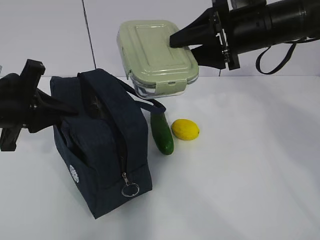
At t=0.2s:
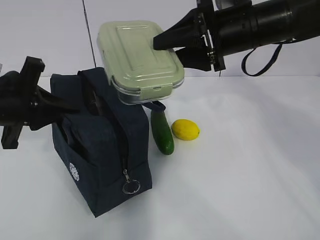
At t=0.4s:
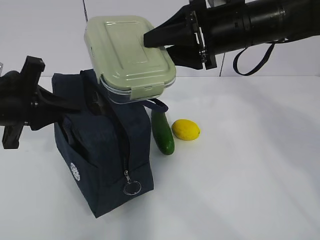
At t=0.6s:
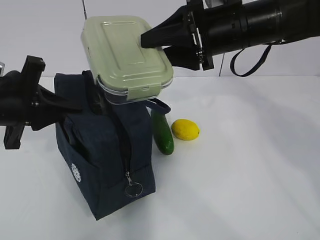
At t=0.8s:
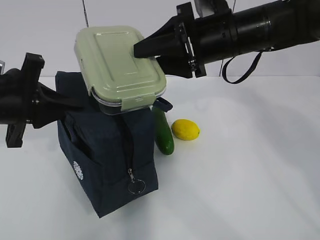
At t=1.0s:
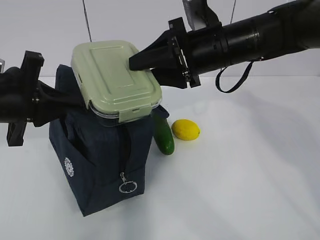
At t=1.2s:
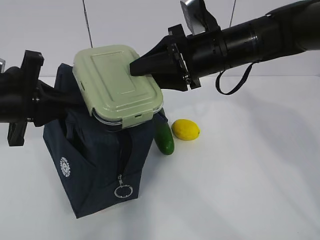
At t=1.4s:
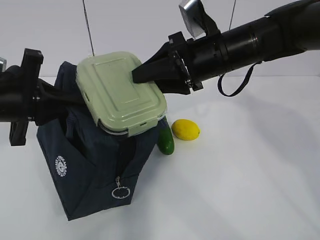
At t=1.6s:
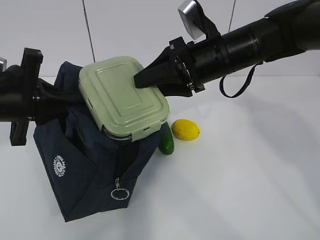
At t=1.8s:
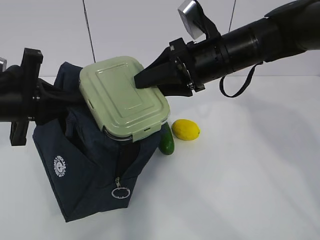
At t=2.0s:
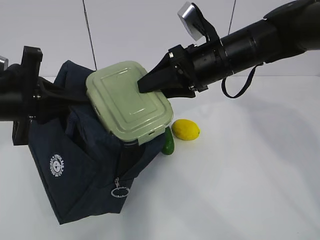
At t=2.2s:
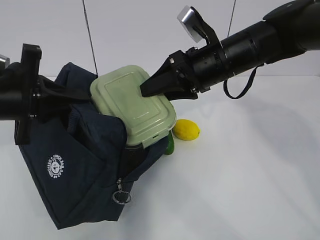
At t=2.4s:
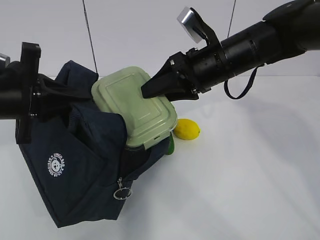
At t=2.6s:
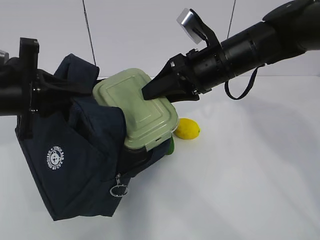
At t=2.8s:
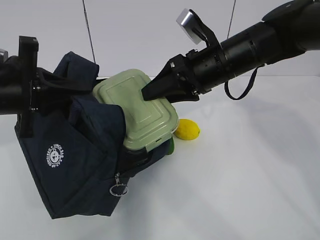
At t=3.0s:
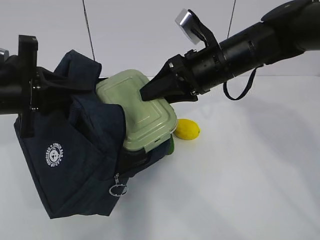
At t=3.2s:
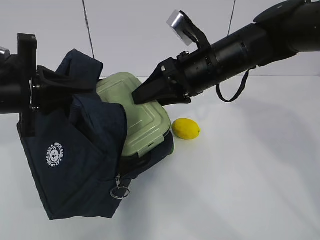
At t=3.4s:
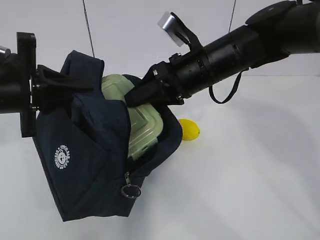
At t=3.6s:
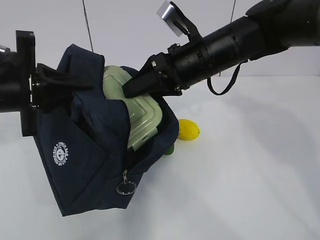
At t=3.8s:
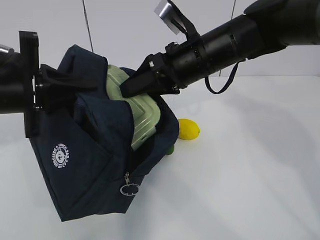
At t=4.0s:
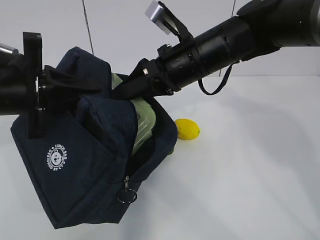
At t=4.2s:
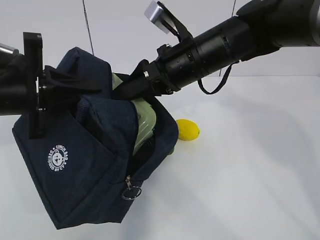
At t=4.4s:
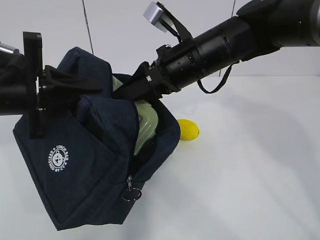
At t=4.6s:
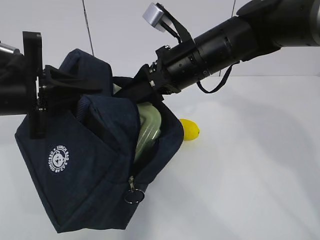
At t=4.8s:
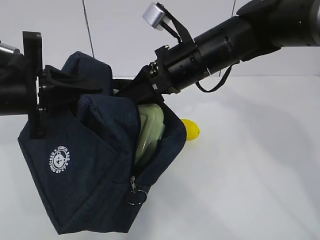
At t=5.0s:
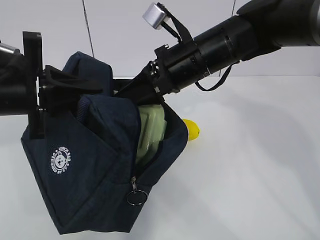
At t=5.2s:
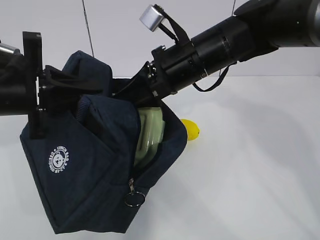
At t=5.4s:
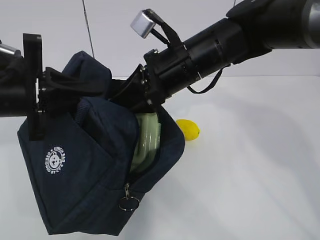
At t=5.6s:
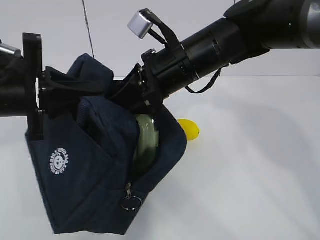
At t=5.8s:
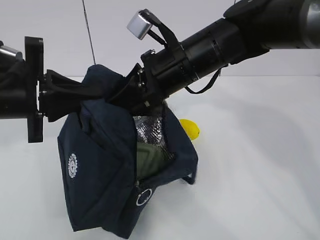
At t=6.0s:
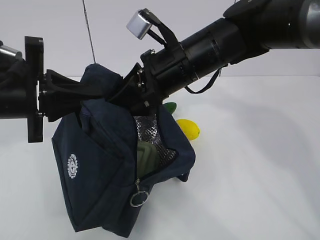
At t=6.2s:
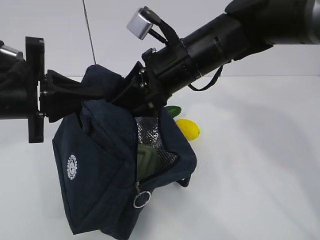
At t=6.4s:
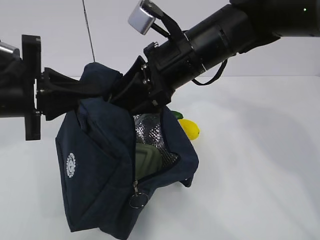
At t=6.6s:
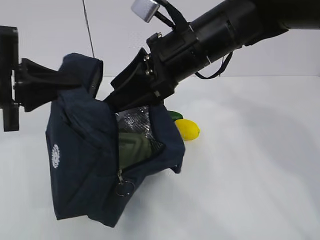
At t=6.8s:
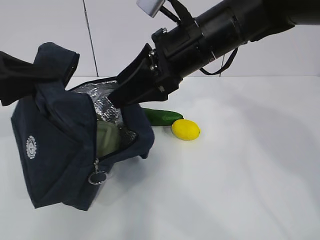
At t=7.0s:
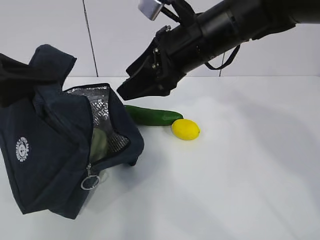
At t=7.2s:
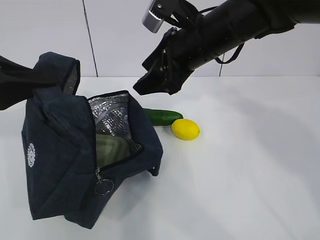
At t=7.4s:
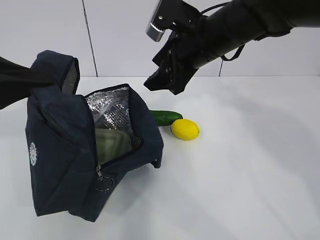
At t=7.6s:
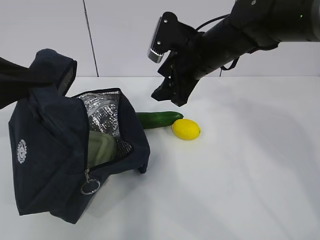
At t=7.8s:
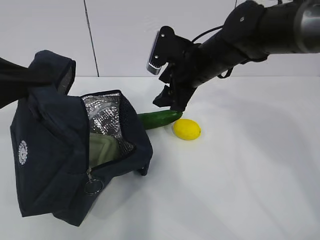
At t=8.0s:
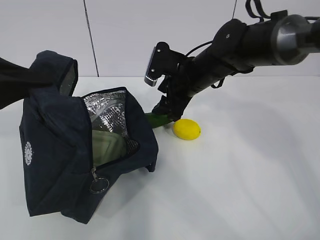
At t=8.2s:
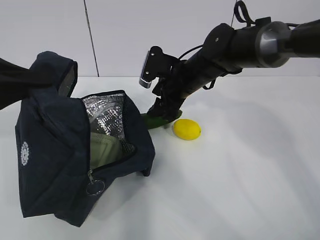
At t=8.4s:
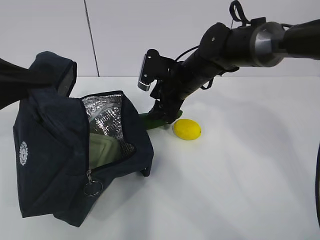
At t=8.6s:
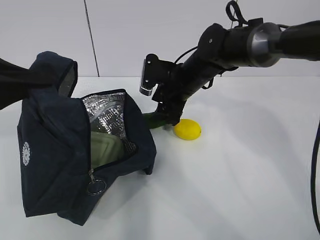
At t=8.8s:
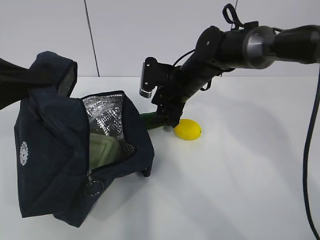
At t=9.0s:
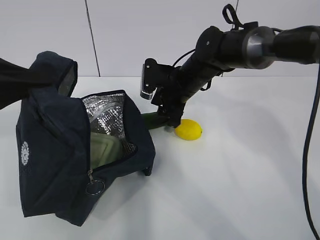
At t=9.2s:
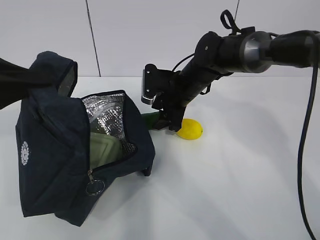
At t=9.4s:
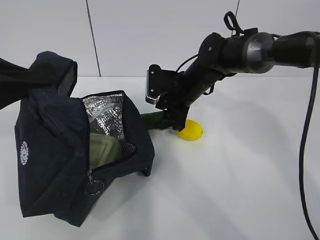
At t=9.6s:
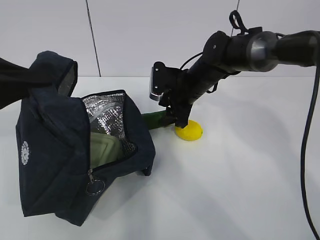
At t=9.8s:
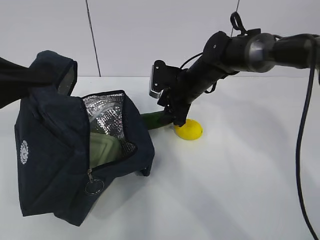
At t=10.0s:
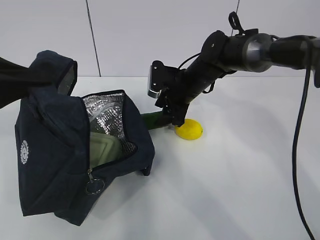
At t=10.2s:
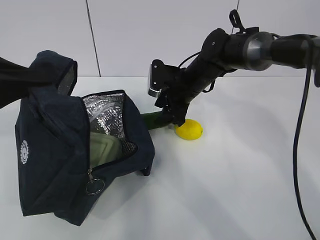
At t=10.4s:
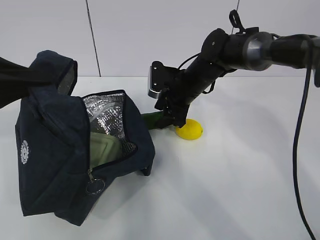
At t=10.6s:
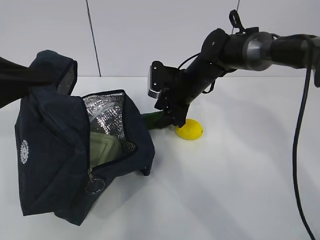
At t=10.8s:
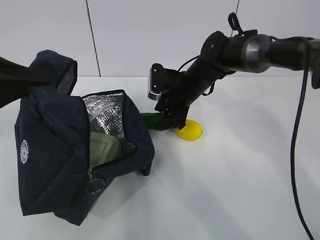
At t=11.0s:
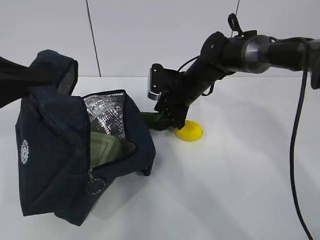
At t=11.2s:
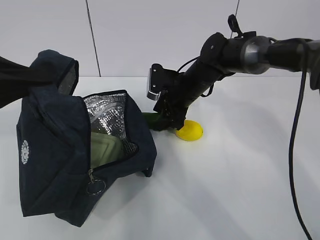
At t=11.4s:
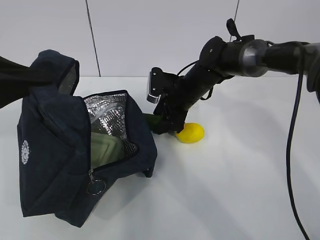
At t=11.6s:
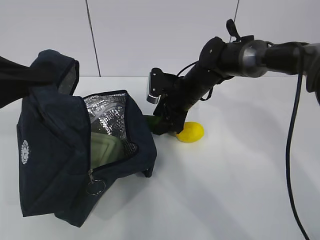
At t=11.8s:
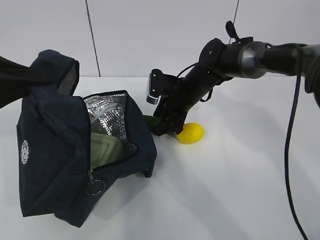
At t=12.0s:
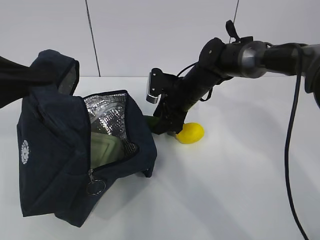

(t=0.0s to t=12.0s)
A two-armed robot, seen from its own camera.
Step, t=0.8s - t=7.8s: Grab the cucumber with your right hand.
t=0.0s - t=1.6s: The right gripper heads to the left, covering approximately 5 cm.
t=1.6s - t=3.0s: The grippers move only a little.
t=6.0s - t=7.6s: The left gripper is displaced to the left by roughly 5 cm. Meanwhile the right gripper shifts roughly 5 cm forward.
t=7.6s - t=9.0s: The right gripper moves downward and forward, roughly 10 cm.
t=9.0s - t=12.0s: There are only small adjustments of the grippers.

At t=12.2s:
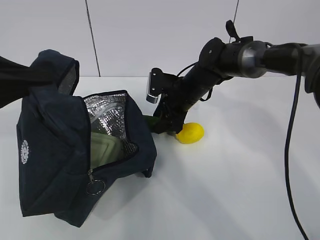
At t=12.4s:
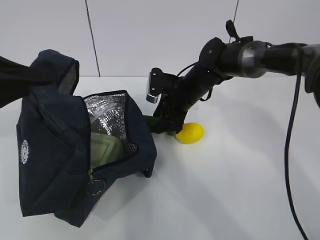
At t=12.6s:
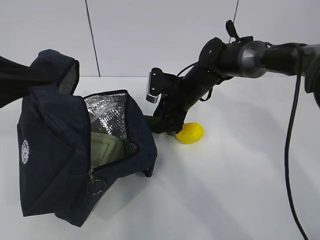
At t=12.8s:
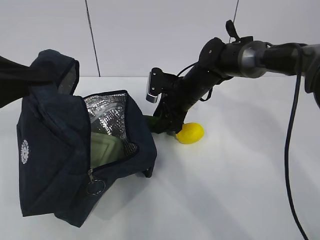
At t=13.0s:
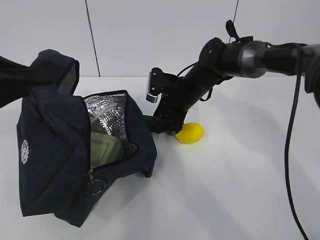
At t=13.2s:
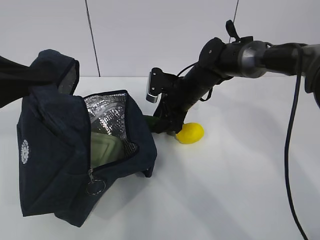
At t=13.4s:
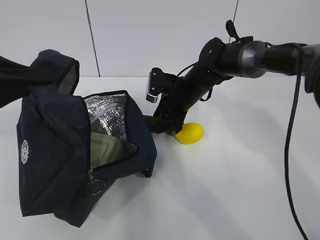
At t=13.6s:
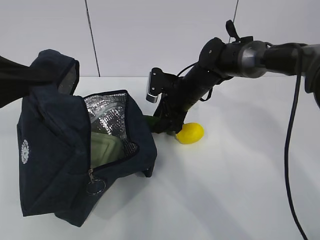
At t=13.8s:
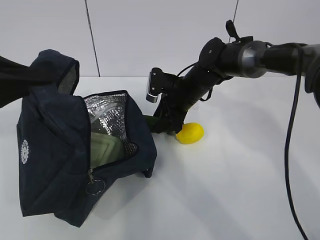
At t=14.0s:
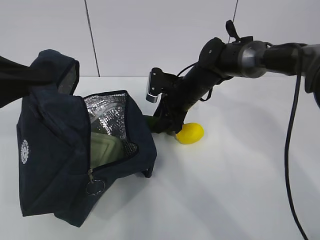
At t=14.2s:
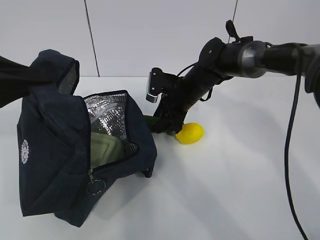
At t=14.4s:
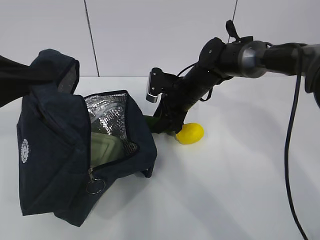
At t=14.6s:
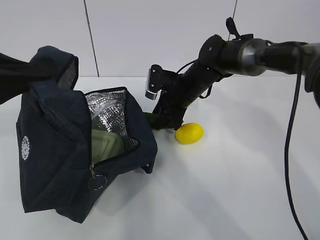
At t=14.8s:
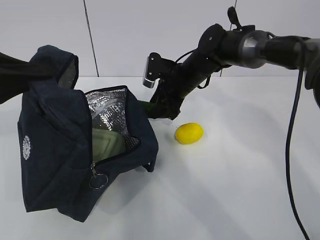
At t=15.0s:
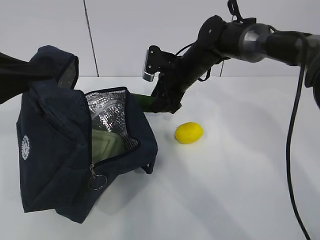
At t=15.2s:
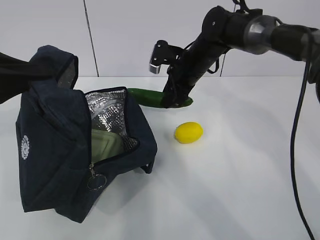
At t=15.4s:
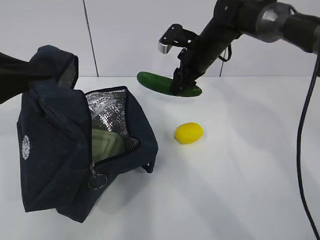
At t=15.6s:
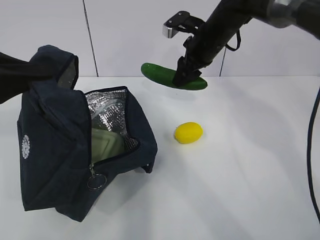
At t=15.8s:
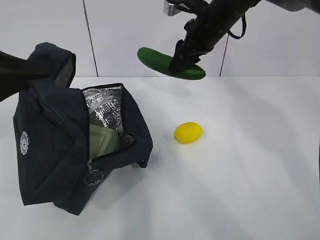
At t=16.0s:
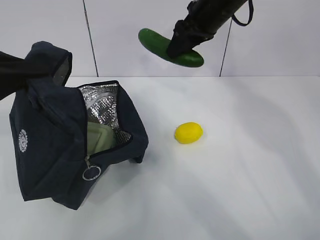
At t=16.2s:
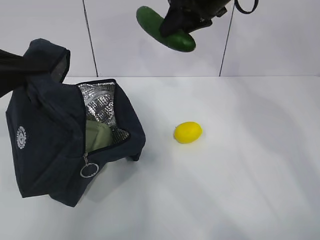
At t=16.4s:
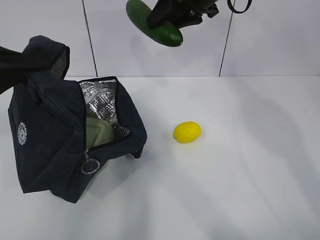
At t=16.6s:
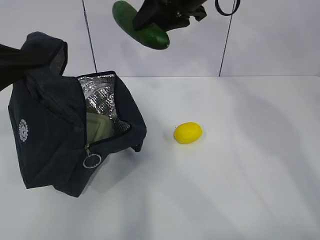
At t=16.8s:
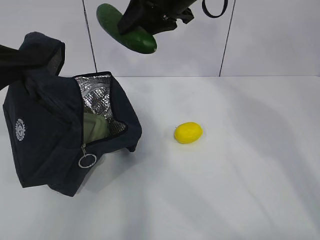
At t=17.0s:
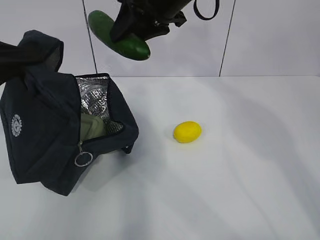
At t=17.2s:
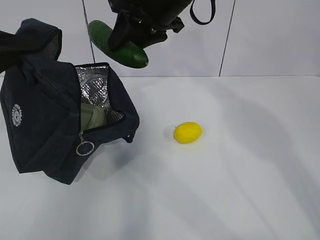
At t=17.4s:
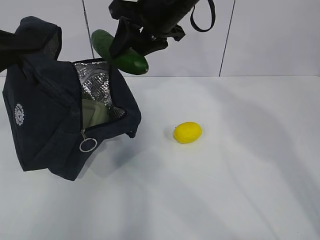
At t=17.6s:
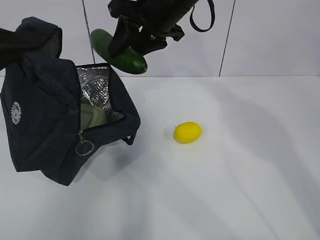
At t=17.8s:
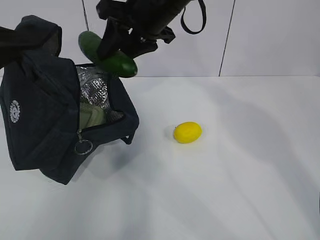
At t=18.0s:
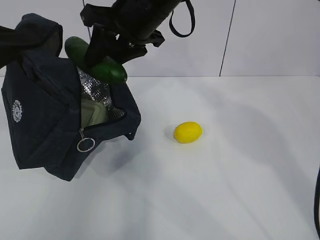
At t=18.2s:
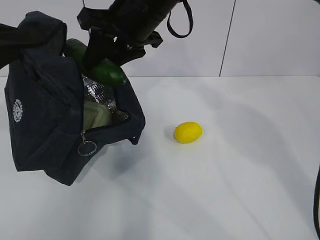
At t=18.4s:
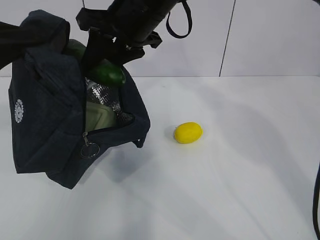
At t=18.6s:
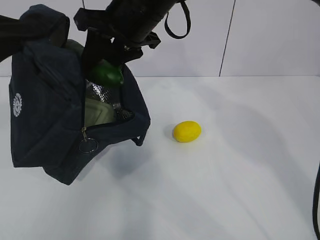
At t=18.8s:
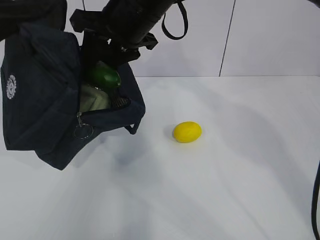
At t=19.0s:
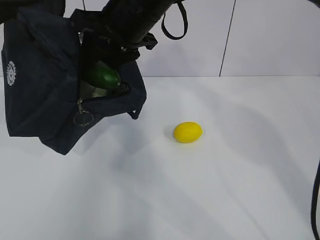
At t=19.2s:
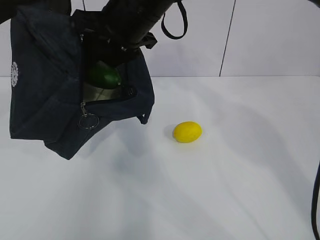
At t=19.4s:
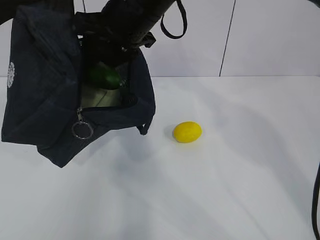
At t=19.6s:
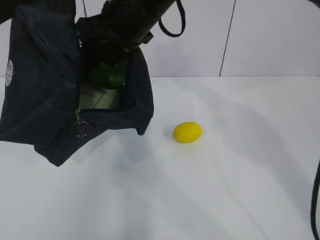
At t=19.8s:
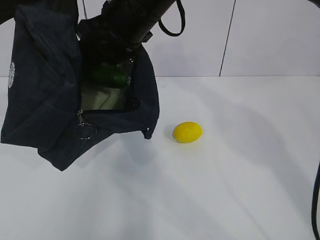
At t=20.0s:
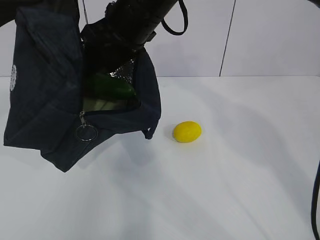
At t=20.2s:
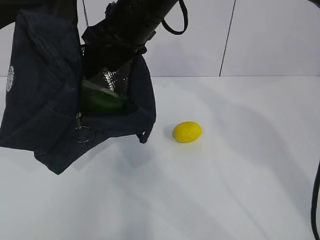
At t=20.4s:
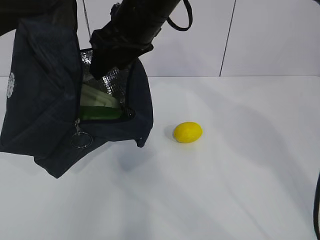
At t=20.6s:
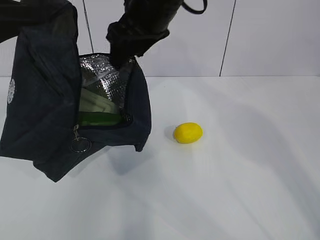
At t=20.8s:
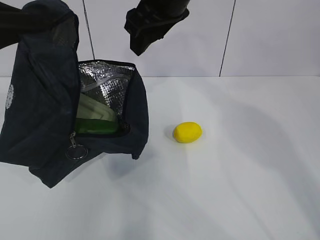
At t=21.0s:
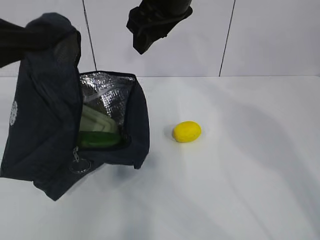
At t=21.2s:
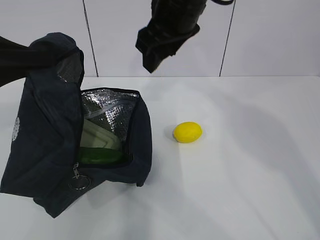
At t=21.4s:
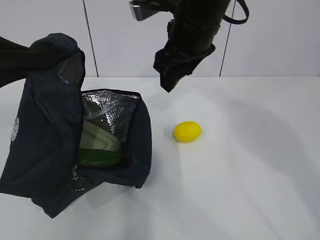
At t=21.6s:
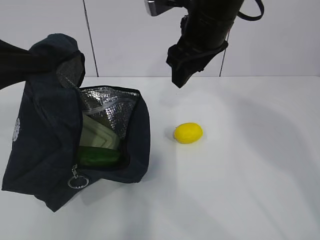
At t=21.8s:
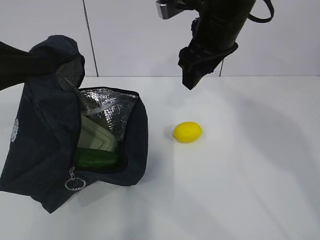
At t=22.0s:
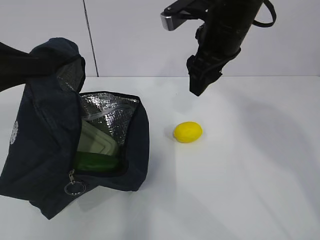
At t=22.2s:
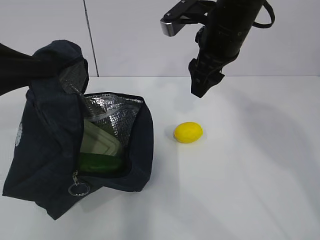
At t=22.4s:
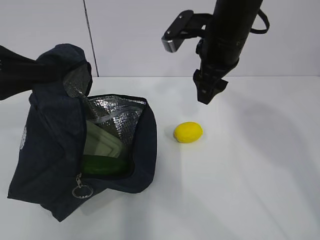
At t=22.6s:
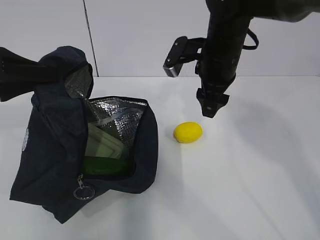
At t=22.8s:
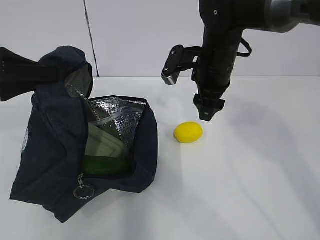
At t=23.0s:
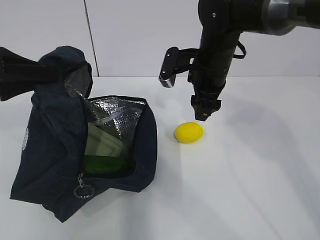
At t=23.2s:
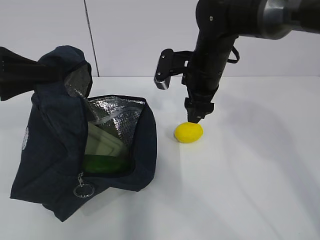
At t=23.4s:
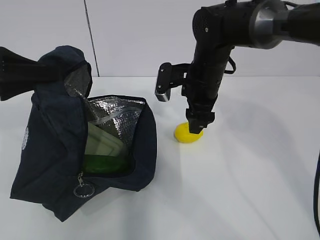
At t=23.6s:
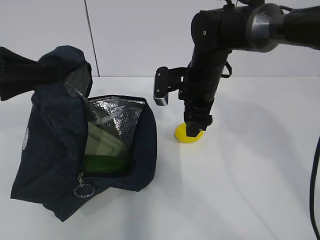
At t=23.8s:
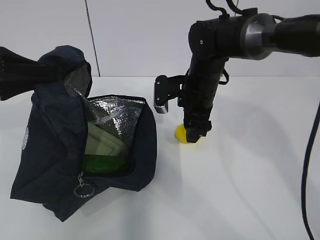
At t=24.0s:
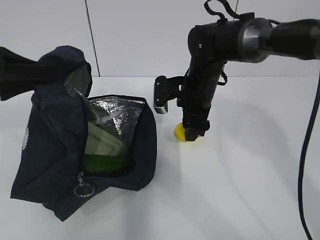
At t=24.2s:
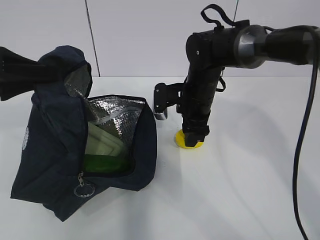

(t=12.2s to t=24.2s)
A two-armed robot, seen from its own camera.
Step, t=13.0s - t=16.2s: Grab the lemon with your right hand.
Step, t=16.4s - t=18.6s: Secure the lunch bag with your left hand.
Step, t=19.0s - t=20.8s: Grab the lunch bag with your right hand.
t=12.2s - t=13.8s: Both grippers stay about where they are.
t=13.8s - t=15.2s: The right gripper shifts approximately 5 cm upward.
t=15.2s - t=16.6s: The right gripper travels upward by approximately 15 cm.
t=16.6s - t=18.2s: The right gripper shifts some 10 cm to the left and backward.
t=18.2s - t=19.8s: The grippers stay close to where they were, moving slightly.
t=19.8s - t=21.2s: The left gripper moves approximately 5 cm, while the right gripper shifts approximately 5 cm to the right.
t=21.2s - t=22.6s: The right gripper moves downward and to the right, approximately 10 cm.
t=22.6s - t=24.2s: The right gripper shifts about 10 cm downward.
